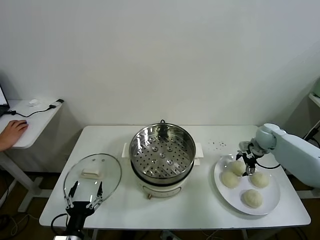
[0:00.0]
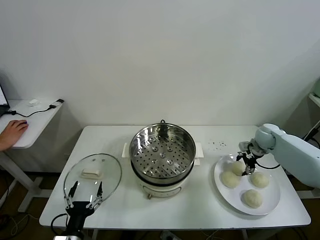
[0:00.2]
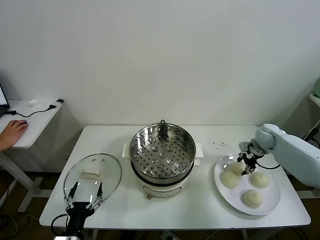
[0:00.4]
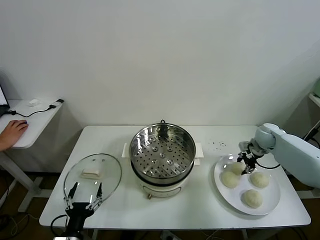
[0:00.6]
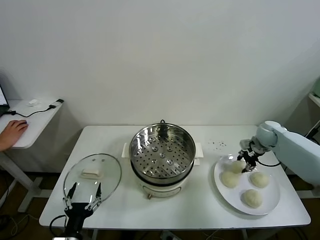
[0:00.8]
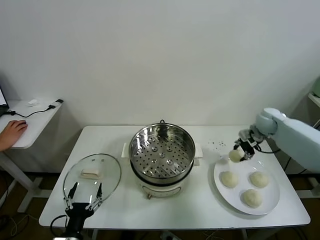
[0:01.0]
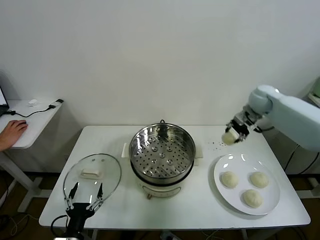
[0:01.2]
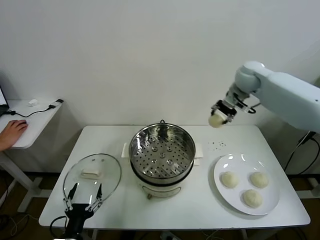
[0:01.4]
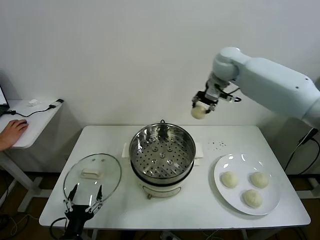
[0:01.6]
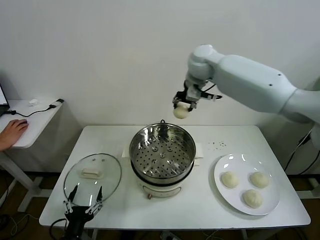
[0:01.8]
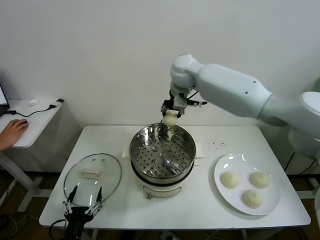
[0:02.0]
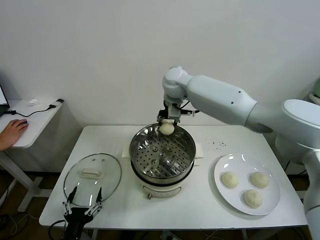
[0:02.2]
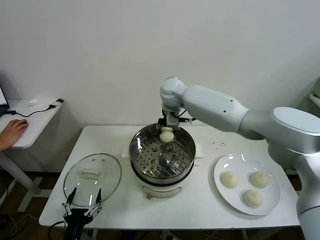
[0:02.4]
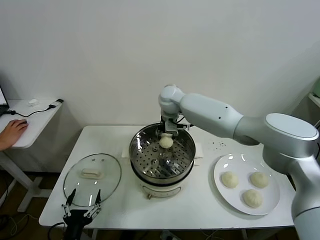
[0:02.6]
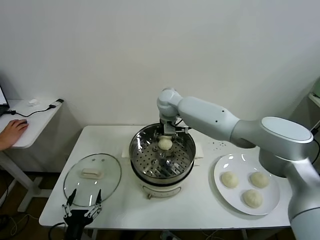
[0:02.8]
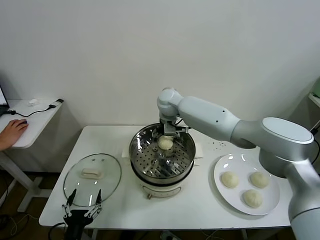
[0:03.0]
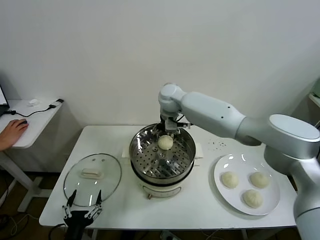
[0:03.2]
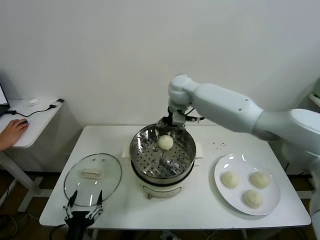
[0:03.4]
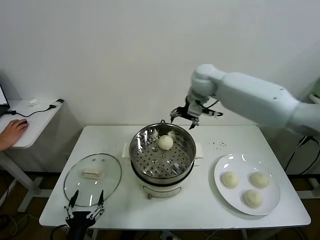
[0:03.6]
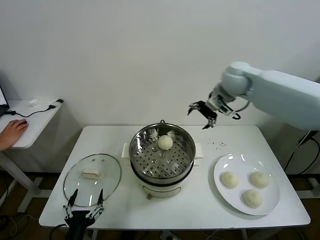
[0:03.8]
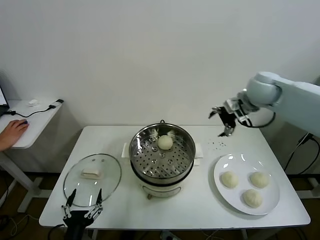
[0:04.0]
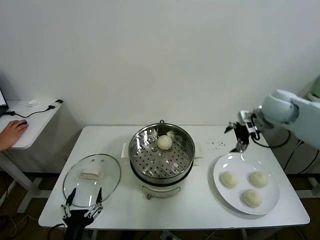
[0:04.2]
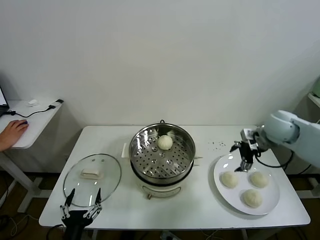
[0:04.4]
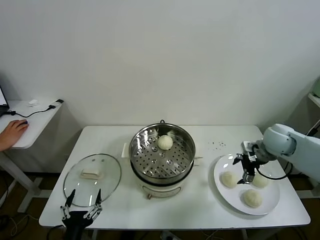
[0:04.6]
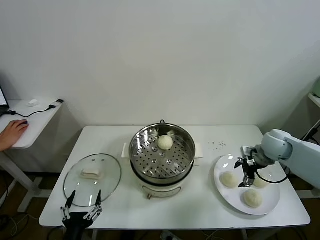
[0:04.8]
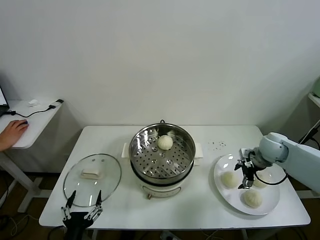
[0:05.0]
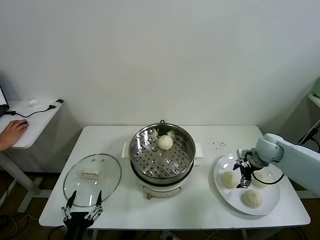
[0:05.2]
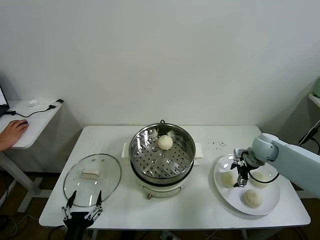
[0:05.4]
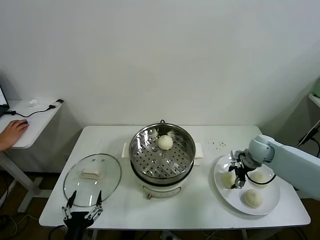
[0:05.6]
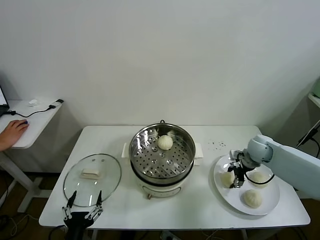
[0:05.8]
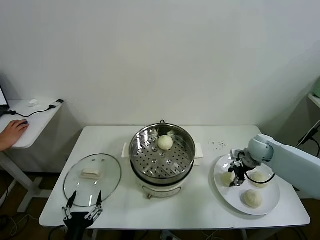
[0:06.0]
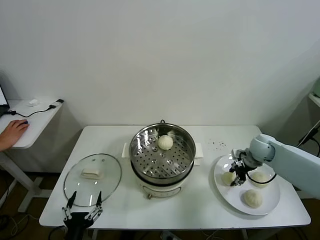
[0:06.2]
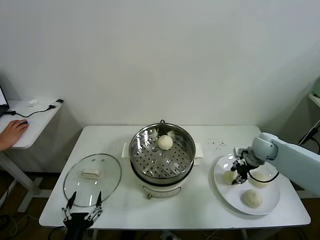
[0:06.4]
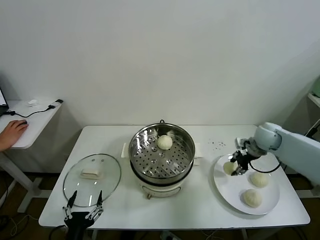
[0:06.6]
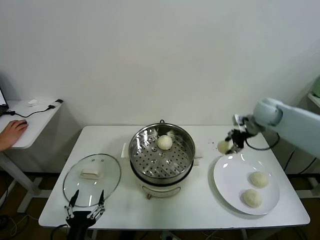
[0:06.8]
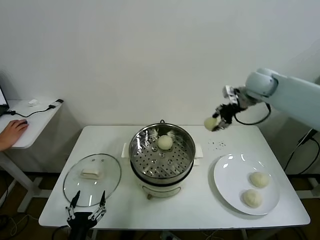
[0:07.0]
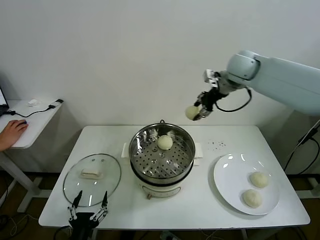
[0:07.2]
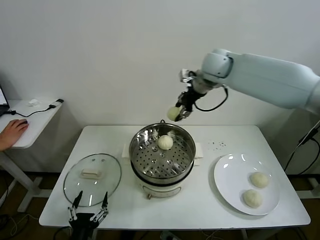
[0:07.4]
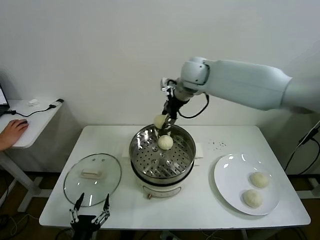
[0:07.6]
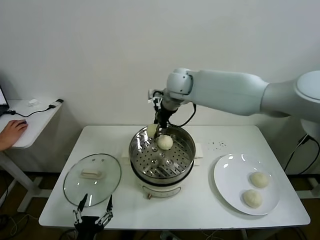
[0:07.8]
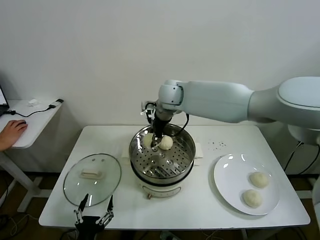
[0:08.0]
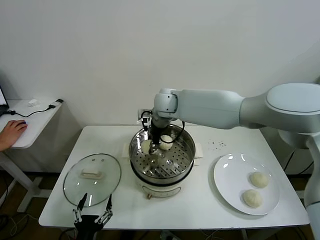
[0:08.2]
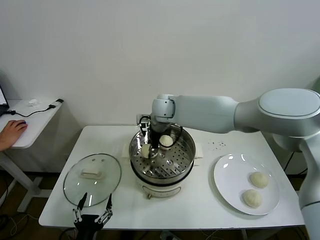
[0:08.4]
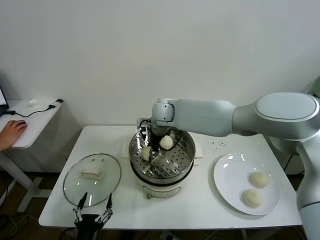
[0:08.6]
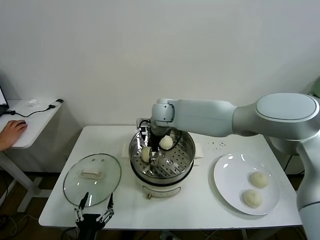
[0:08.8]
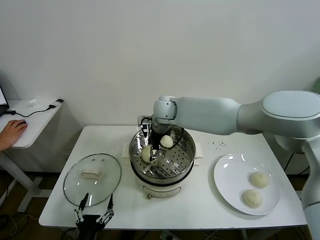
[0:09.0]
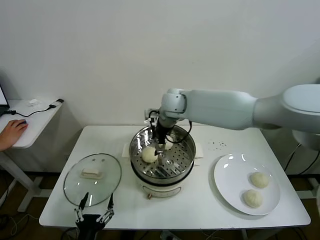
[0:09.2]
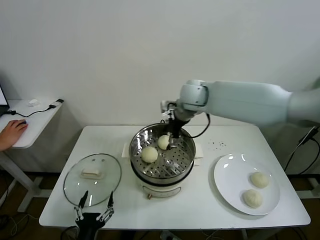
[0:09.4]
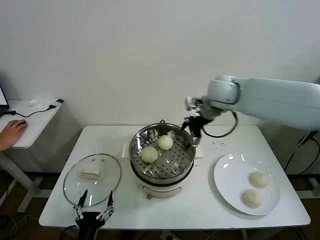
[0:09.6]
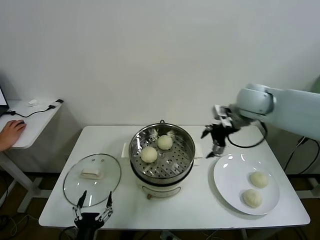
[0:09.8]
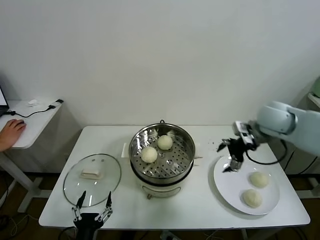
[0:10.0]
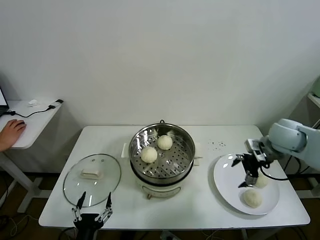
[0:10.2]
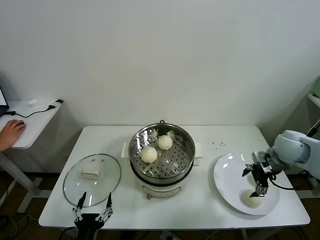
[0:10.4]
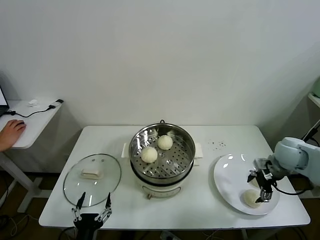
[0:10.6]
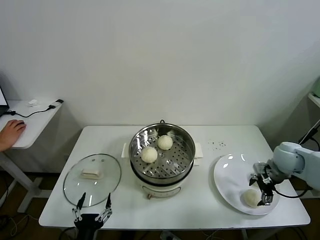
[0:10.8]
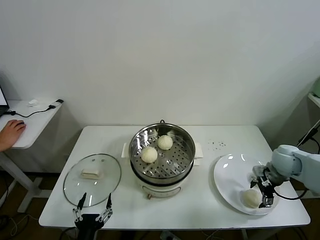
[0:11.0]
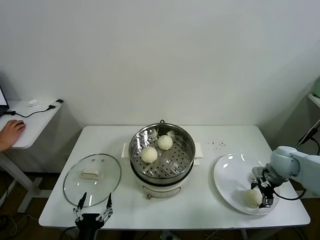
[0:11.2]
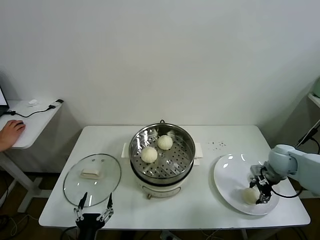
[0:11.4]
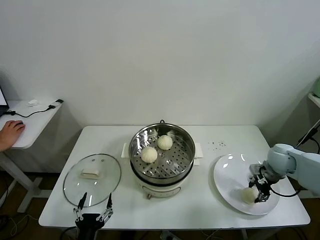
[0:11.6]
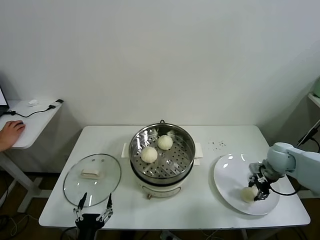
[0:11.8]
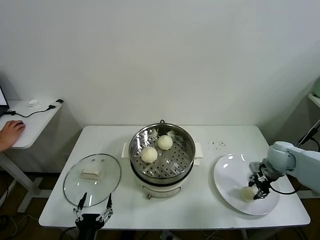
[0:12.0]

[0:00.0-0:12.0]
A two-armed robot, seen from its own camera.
Task of the whole recording: take steamed baozi put them in steamer.
Step, 0:00.6 to 0:03.0: Place the baozi on the steamer with right gripper.
Step, 0:03.4 to 0:05.8: Grasp the baozi in the plate with right gripper.
Step, 0:06.0 to 0:09.0: Place the baozi on the steamer with right gripper.
Step, 0:09.2 to 0:11.6: Grasp the baozi in the plate with right gripper.
0:00.0 to 0:01.6: The right gripper travels upward and to the left by some 35 cm, and closes up.
0:01.6 to 0:03.0: The right gripper goes about 20 cm to the left and downward, and opens its fingers.
0:03.0 to 0:04.4: The right gripper shifts about 35 cm to the right.
0:04.4 to 0:06.0: The right gripper shifts roughly 15 cm downward, and closes its fingers.
0:06.0 to 0:07.6: The right gripper shifts approximately 40 cm to the left and upward.
0:07.6 to 0:09.0: The right gripper is displaced downward and to the left by approximately 15 cm, and opens up.
0:09.0 to 0:10.4: The right gripper shifts roughly 40 cm to the right.
0:10.4 to 0:12.0: The right gripper is displaced downward by about 10 cm, and closes.

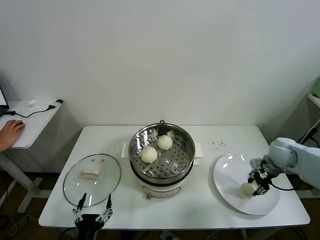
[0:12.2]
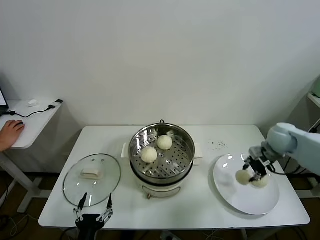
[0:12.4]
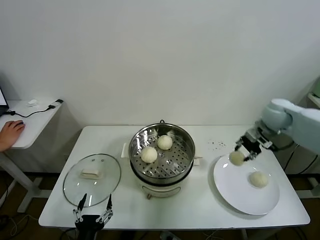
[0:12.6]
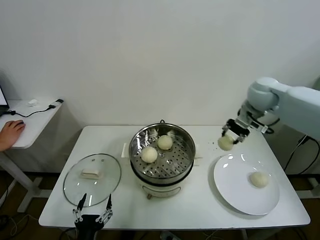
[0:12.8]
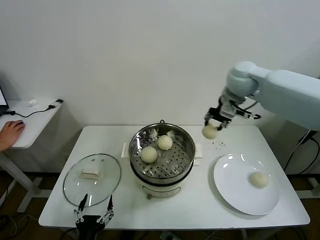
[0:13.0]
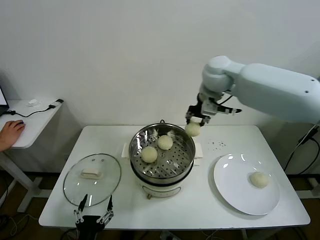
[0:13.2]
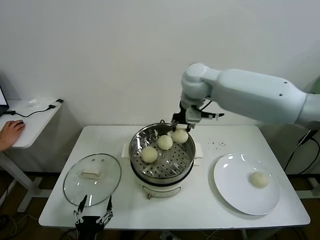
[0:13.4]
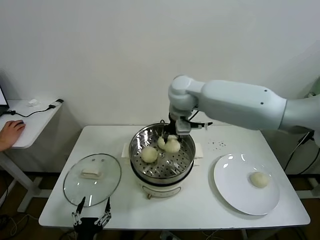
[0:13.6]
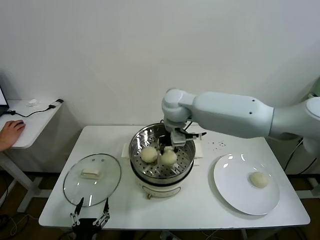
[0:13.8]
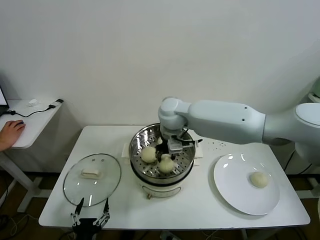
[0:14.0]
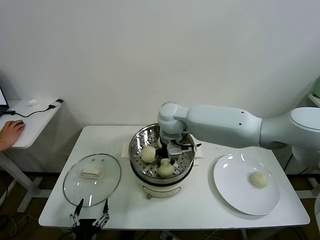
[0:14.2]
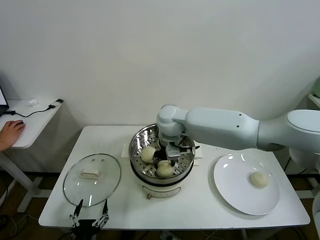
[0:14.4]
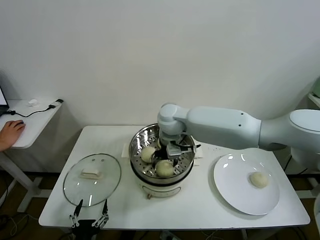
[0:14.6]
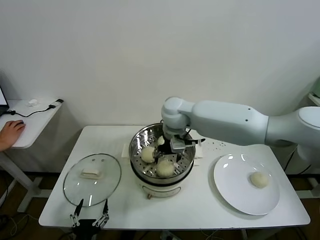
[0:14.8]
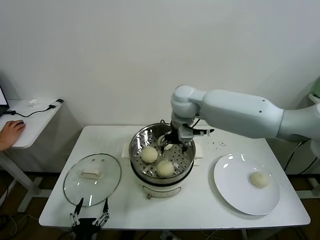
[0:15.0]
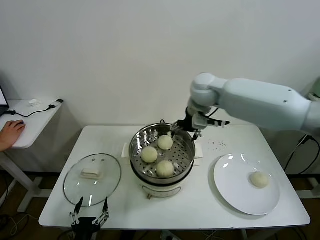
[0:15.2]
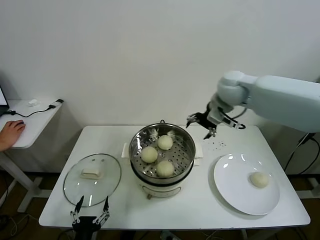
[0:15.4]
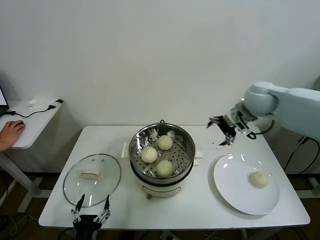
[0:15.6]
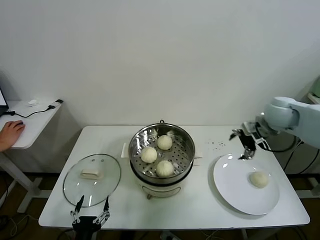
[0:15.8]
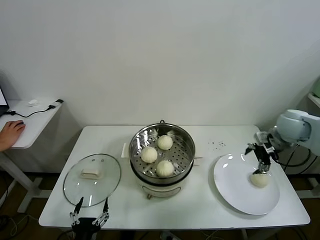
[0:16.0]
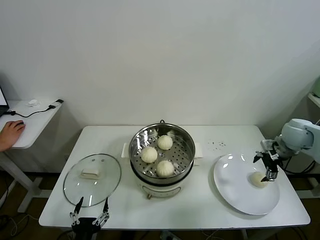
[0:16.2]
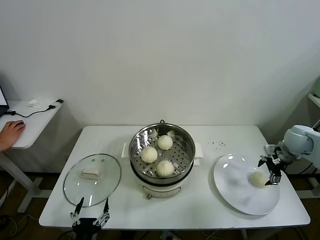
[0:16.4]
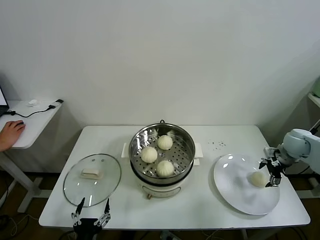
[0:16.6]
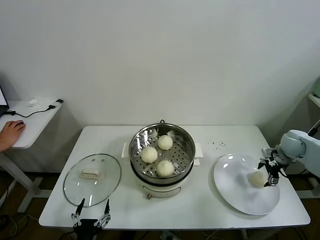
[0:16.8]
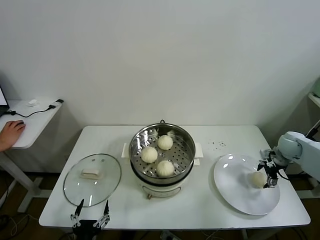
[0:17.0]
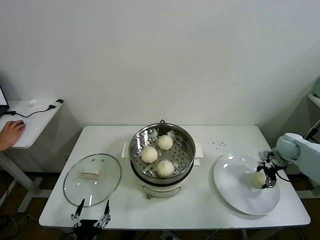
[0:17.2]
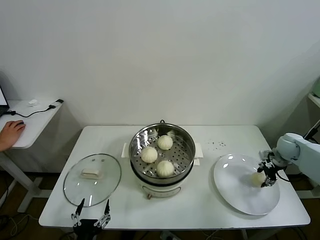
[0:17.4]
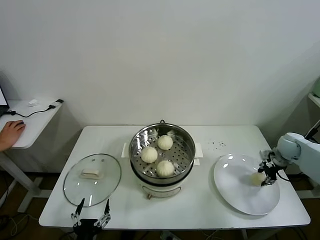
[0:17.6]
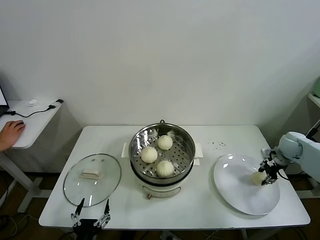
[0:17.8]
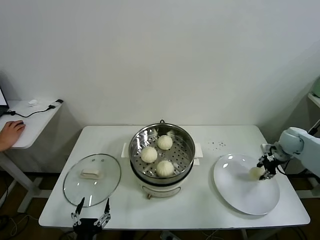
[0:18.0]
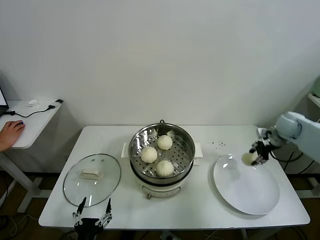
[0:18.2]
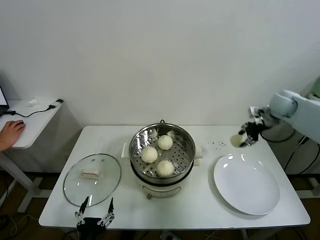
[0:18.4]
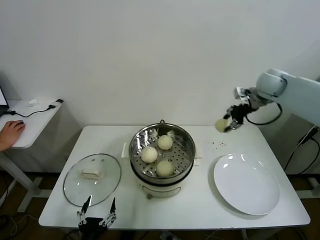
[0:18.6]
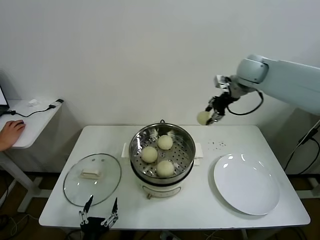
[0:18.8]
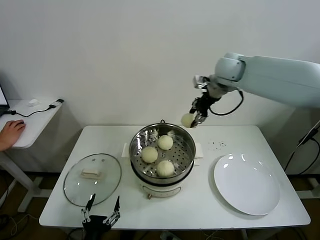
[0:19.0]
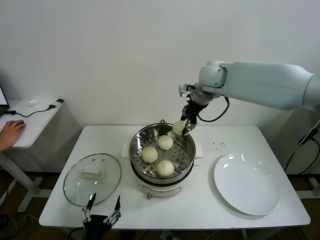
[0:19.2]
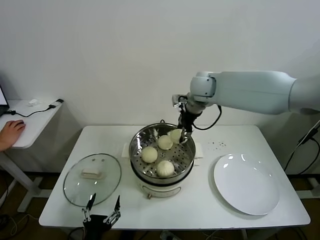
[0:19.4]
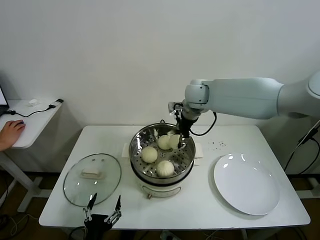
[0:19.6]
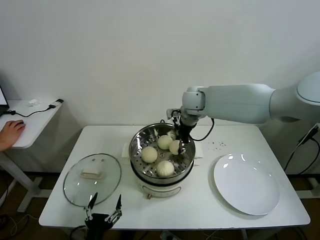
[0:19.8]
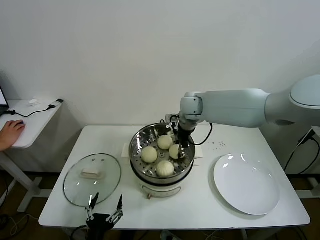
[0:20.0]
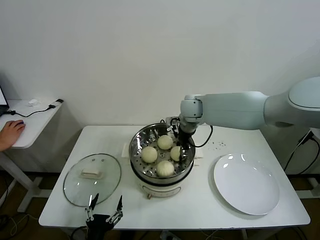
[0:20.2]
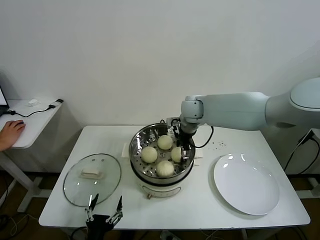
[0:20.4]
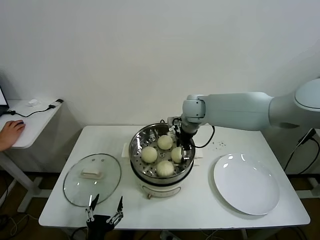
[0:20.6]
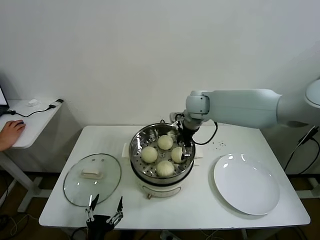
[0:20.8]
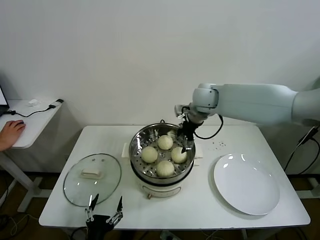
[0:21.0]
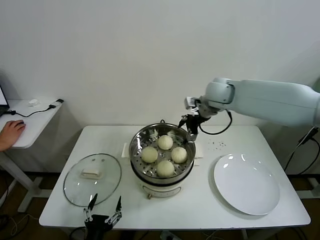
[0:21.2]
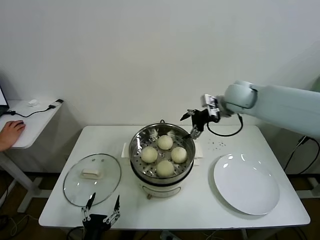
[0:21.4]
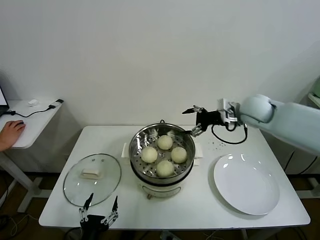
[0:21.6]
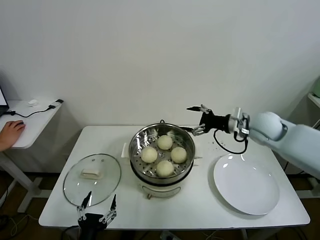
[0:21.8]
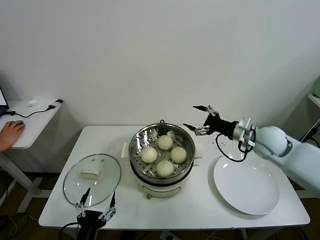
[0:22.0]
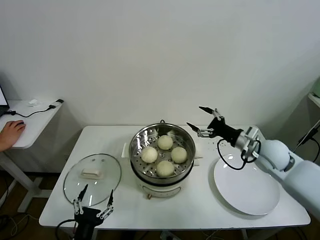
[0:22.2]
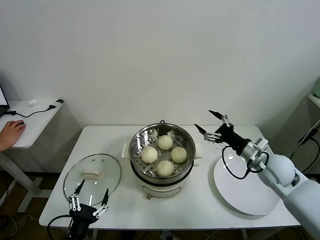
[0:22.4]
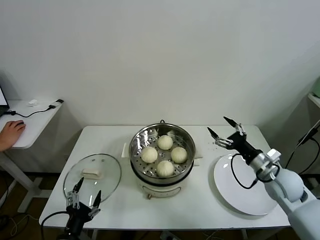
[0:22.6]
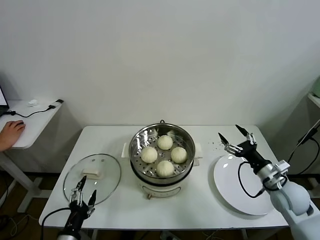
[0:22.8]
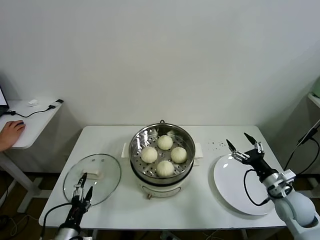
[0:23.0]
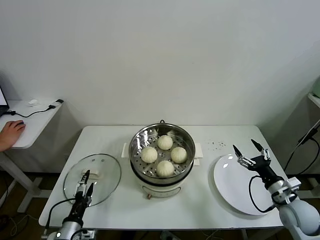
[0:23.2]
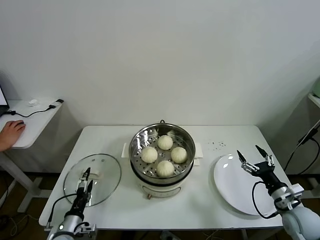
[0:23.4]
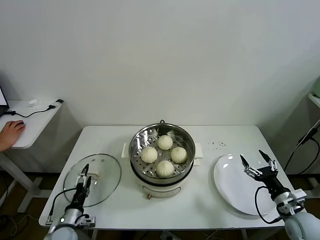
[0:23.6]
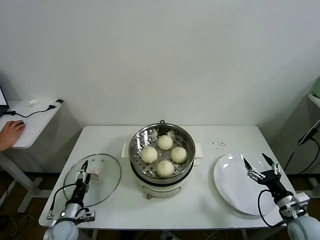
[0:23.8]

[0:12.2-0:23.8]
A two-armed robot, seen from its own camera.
Task of the whole recording: take steamed baozi put them in steamer.
Step, 0:12.2 to 0:14.6: Place the baozi on the steamer with right gripper.
Step, 0:14.8 to 0:17.4: Grasp the baozi in the plate with right gripper.
Step, 0:17.6 to 0:20.6: Place the baozi on the steamer with right gripper.
0:12.2 to 0:13.6: The right gripper shifts approximately 40 cm to the left and upward.
0:13.6 to 0:15.0: The right gripper opens up.
0:15.0 to 0:16.6: The right gripper moves to the right, approximately 40 cm.
0:16.6 to 0:18.0: The right gripper closes its fingers.
0:18.0 to 0:19.4: The right gripper shifts about 40 cm to the left and upward.
0:19.4 to 0:21.0: The right gripper opens.
0:21.0 to 0:22.4: The left gripper ends up some 5 cm from where it was, while the right gripper is displaced to the right, backward and downward by roughly 30 cm.
0:22.4 to 0:23.8: The left gripper is displaced forward, downward and to the left by approximately 20 cm. The right gripper moves backward, downward and to the right, roughly 20 cm.
